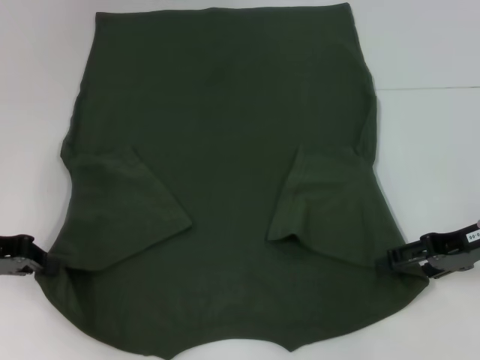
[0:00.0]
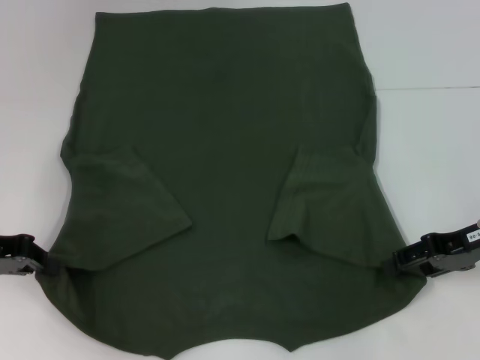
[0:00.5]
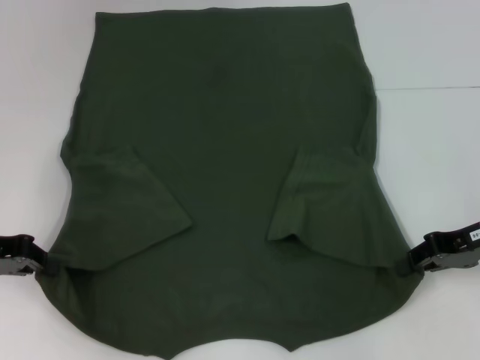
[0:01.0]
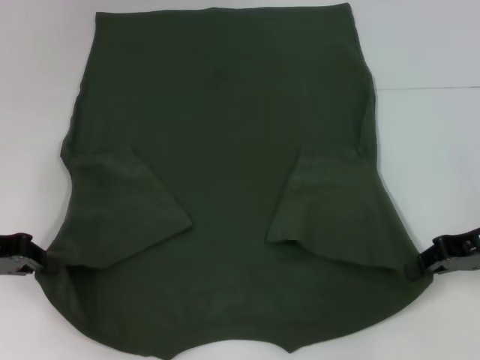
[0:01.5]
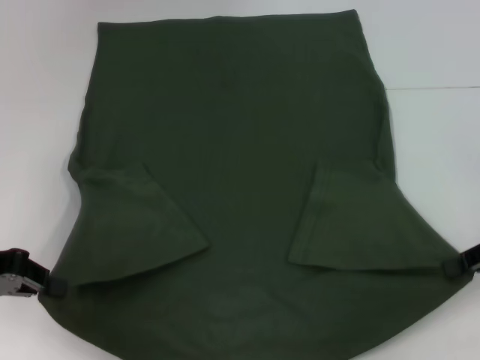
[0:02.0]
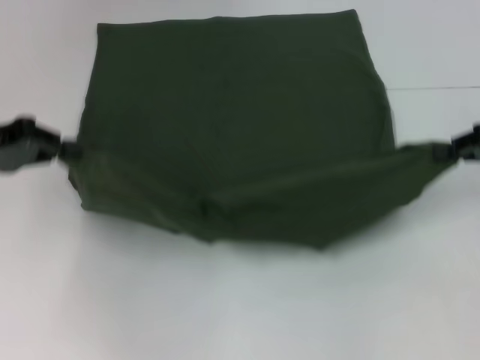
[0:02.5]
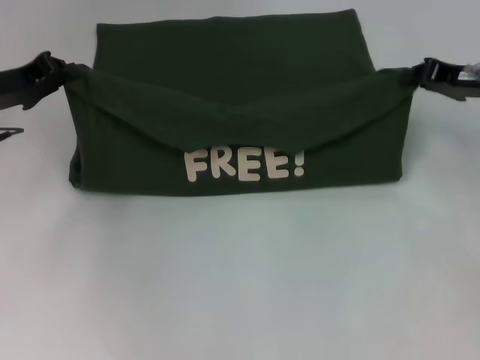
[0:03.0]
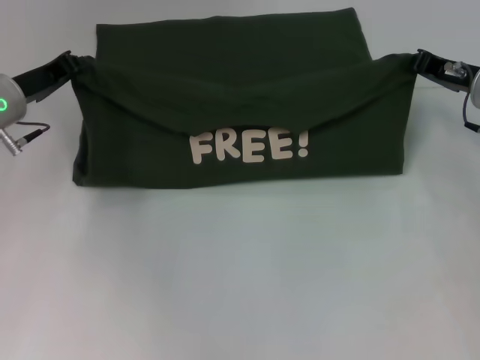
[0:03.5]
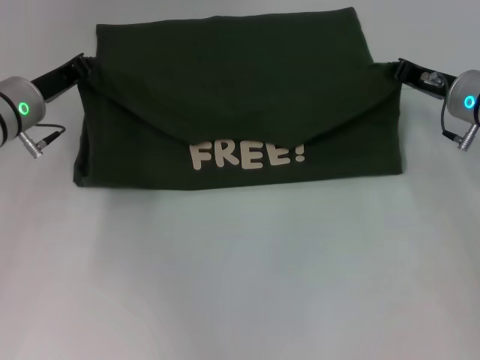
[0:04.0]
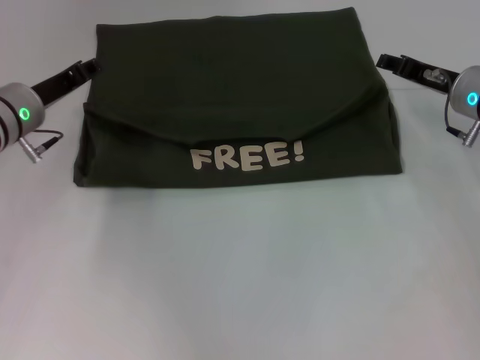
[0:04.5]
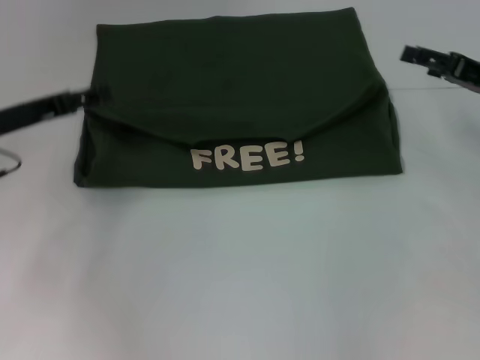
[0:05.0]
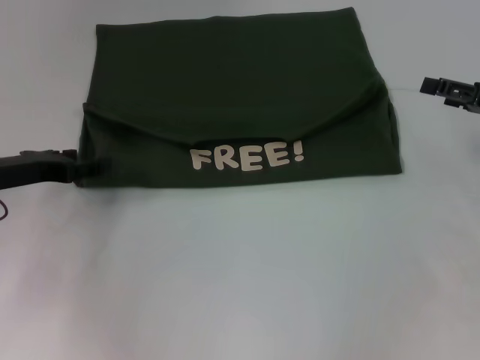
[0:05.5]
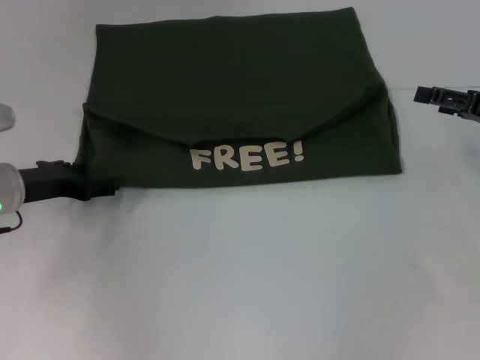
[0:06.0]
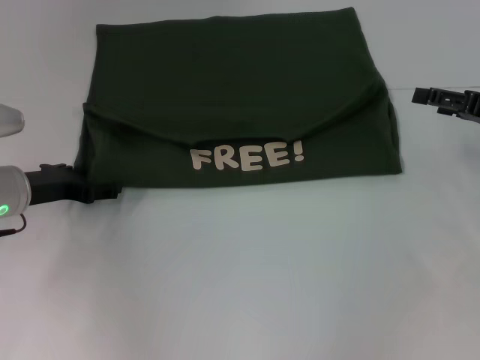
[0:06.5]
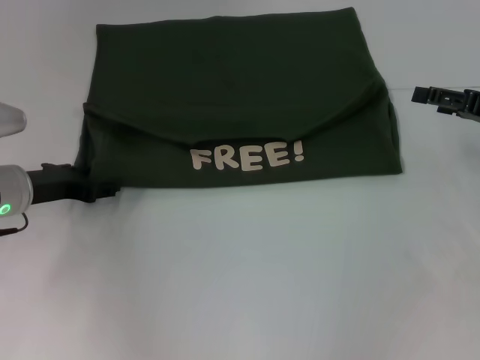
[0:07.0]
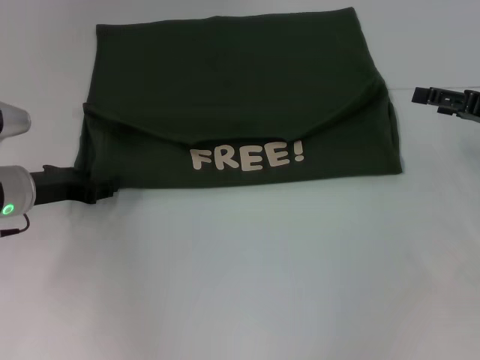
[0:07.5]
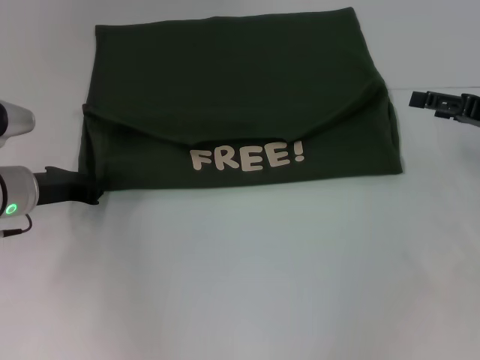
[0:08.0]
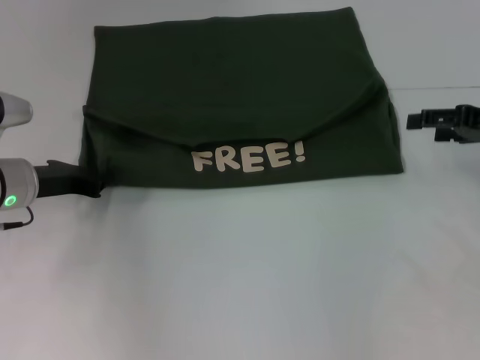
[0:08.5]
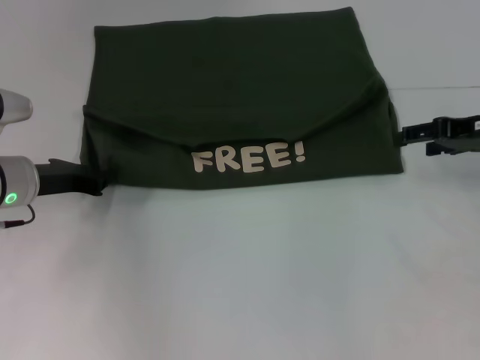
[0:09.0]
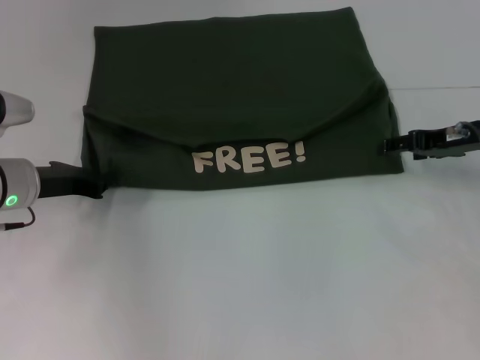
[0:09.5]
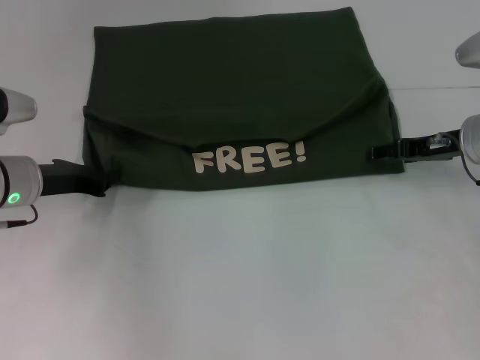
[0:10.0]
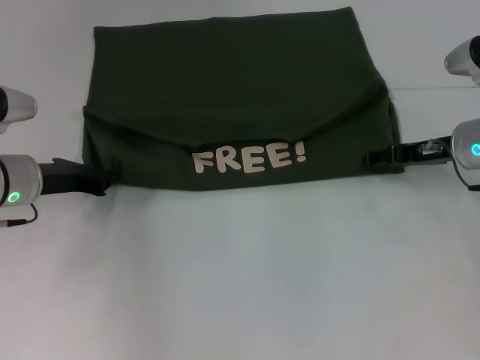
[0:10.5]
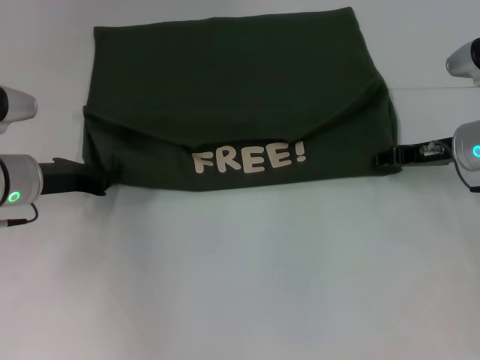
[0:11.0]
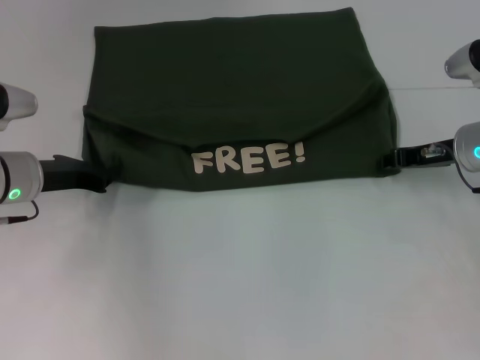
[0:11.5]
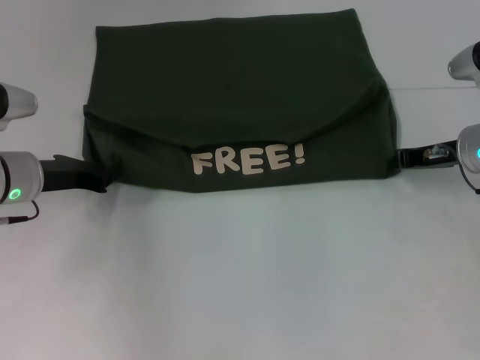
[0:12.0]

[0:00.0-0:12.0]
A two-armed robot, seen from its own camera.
Step, 0:01.5 to 0:04.0: Fold the clothes with your left hand.
Step, 0:01.5 to 0:04.0: Fold the clothes with your right hand.
0:00.0 to 0:02.0: The right gripper moves to the right, approximately 5 cm, and closes.
0:02.0 to 0:04.0: The left gripper travels forward and to the right by some 15 cm; the right gripper travels forward and to the left by roughly 15 cm.
0:04.0 to 0:06.0: The right gripper travels to the right and backward by about 10 cm, and opens its fingers, while the left gripper shifts some 5 cm backward, and opens.
0:06.0 to 0:08.0: The left gripper closes up.
0:08.0 to 0:10.0: The right gripper travels to the left by some 5 cm.
0:10.0 to 0:12.0: The right gripper closes.

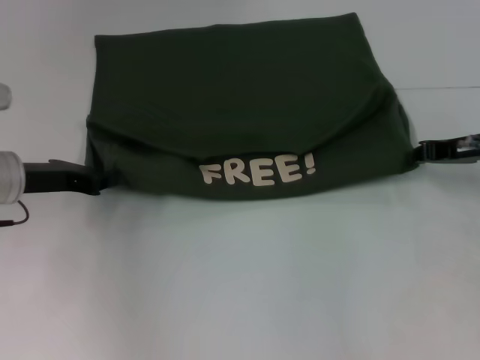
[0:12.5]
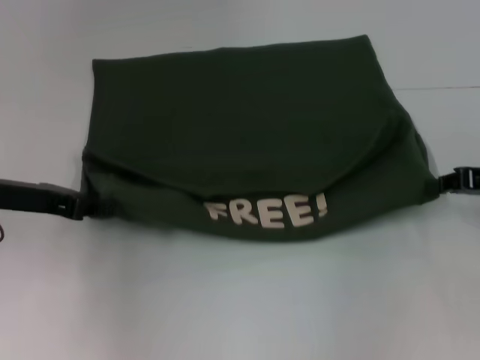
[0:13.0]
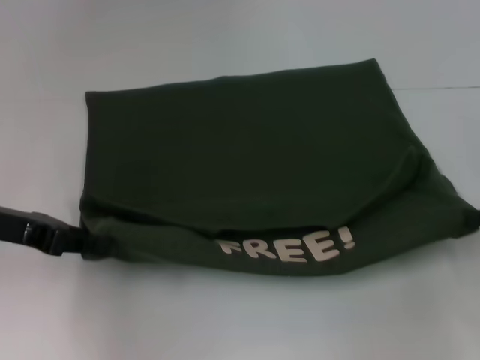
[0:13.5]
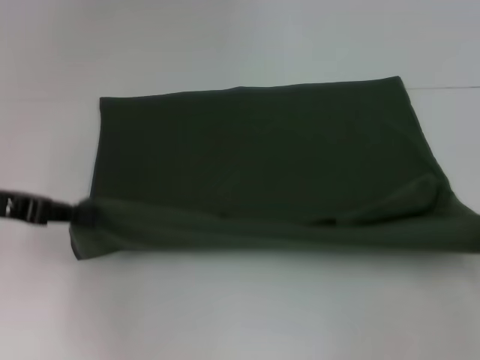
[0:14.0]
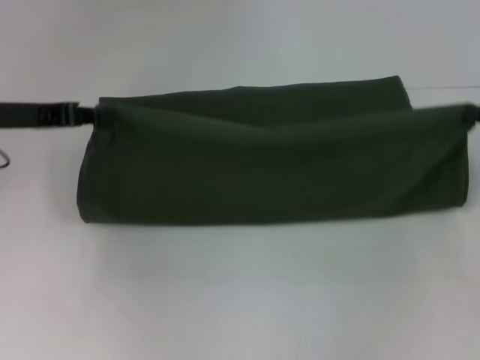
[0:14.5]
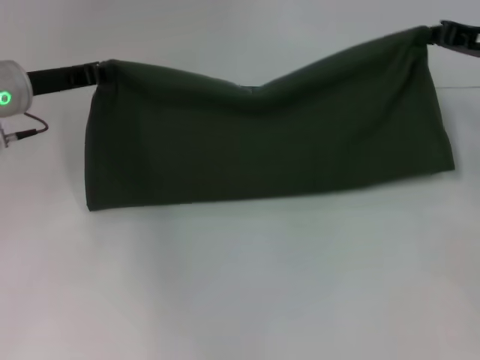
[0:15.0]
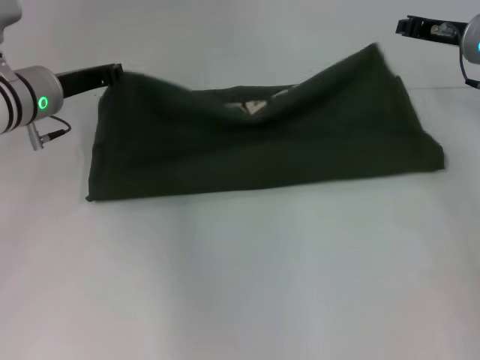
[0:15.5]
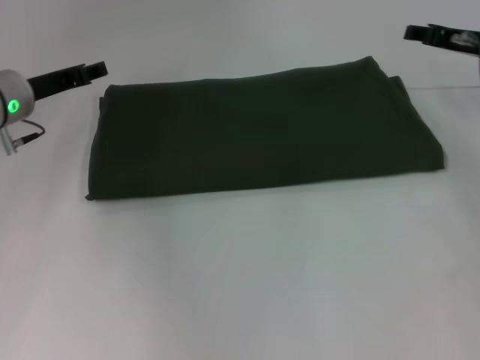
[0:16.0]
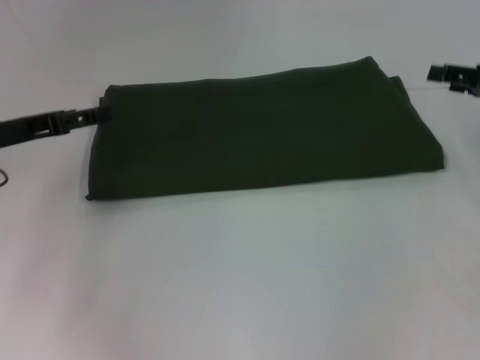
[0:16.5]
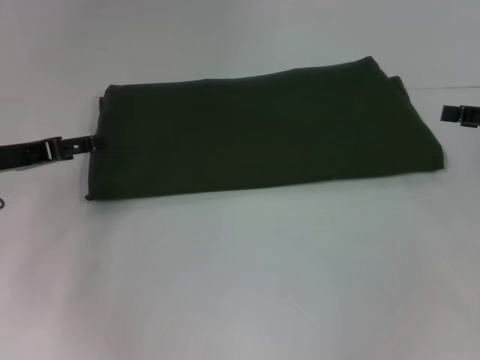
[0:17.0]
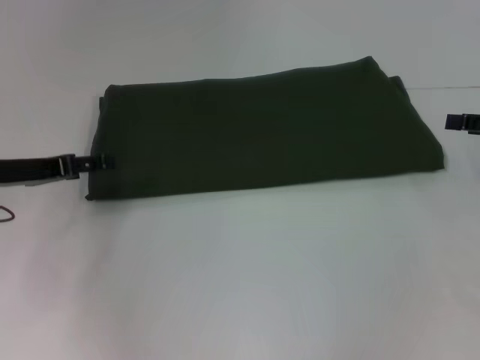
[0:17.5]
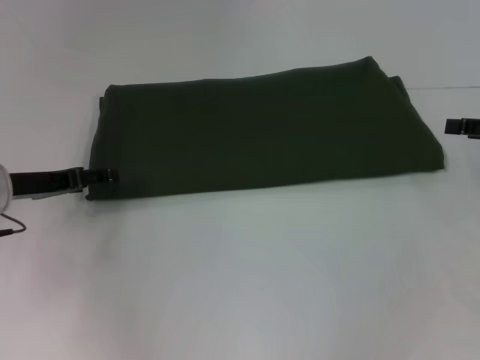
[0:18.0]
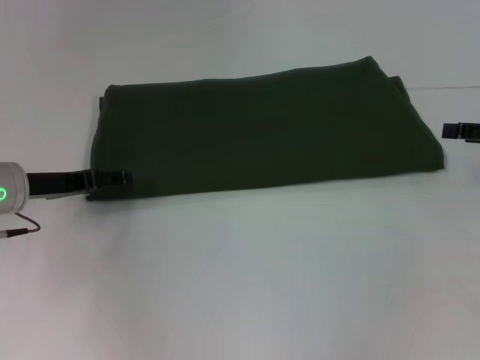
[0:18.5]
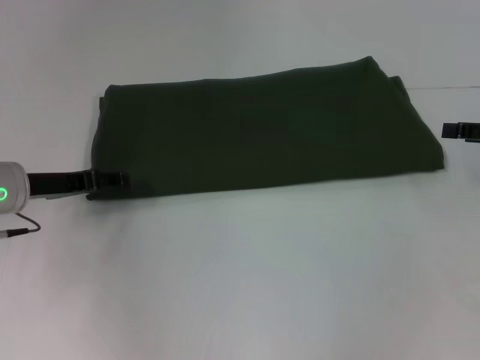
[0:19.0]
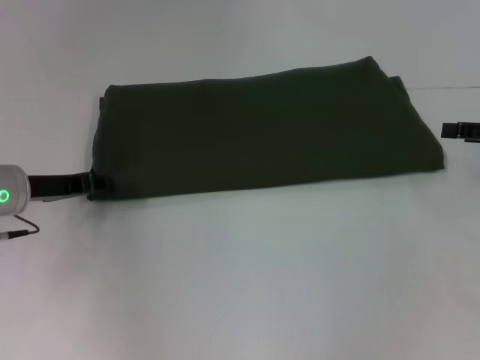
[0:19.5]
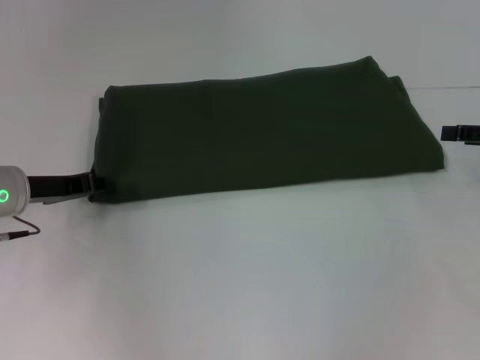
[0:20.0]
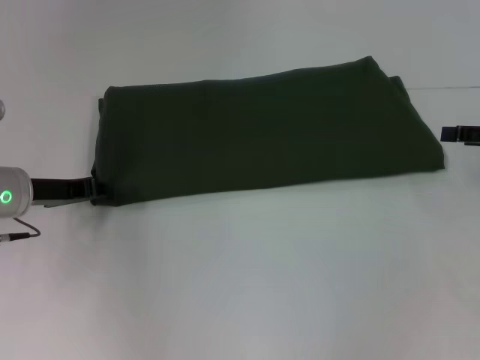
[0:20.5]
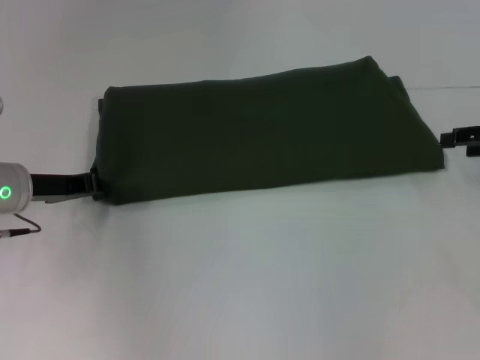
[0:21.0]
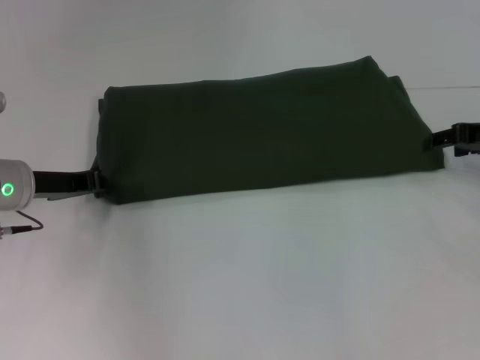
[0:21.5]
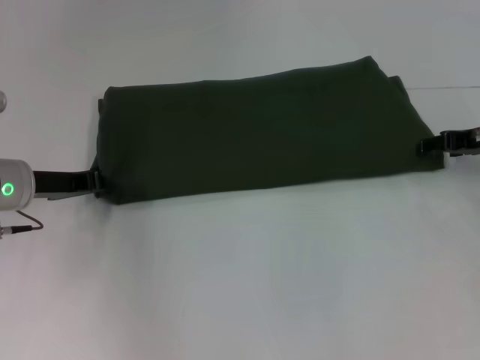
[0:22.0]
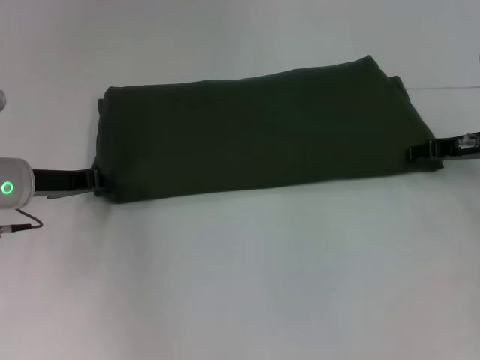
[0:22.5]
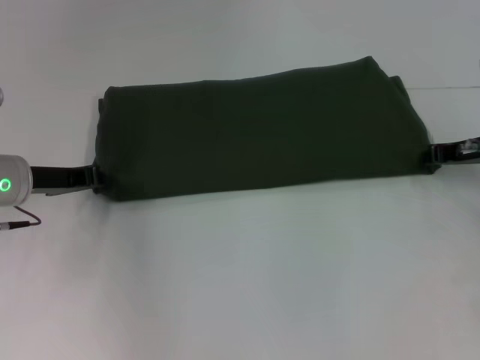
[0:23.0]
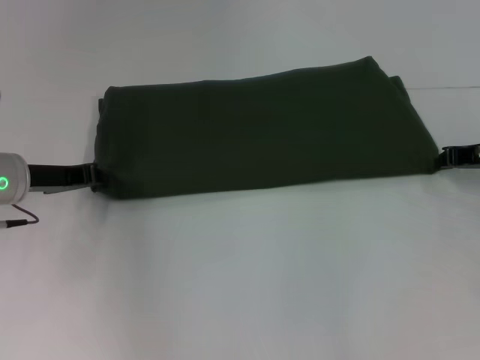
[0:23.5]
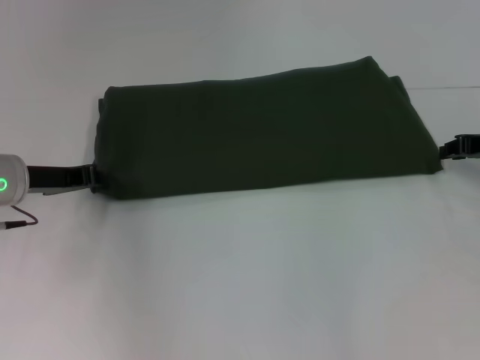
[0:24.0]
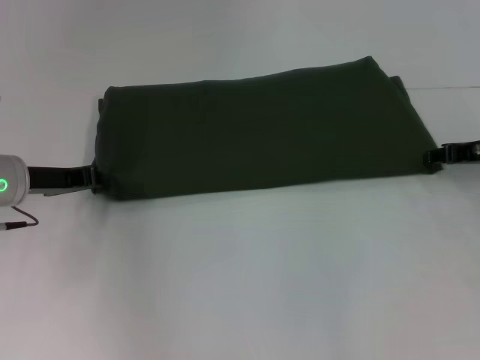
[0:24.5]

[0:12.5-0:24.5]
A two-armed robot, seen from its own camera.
Step, 0:13.5 to 0:15.5: Fold the clothes with your left hand.
Step, 0:13.5 to 0:15.5: Fold the clothes with your right hand.
0:12.5 to 0:14.5: The right gripper is displaced to the right by approximately 5 cm, and reaches approximately 15 cm backward, then returns; the left gripper goes approximately 5 cm upward.
0:14.5 to 0:16.5: The right gripper travels forward and back again, about 10 cm each way, and opens. The left gripper moves approximately 5 cm forward and comes back, and opens up.
0:16.5 to 0:18.5: The left gripper shifts by roughly 5 cm.
0:18.5 to 0:20.5: The left gripper closes.
0:20.5 to 0:22.5: The right gripper travels to the left and forward by some 10 cm.
0:22.5 to 0:24.5: The right gripper closes and opens again.

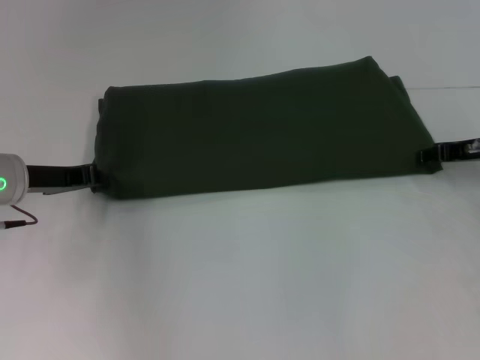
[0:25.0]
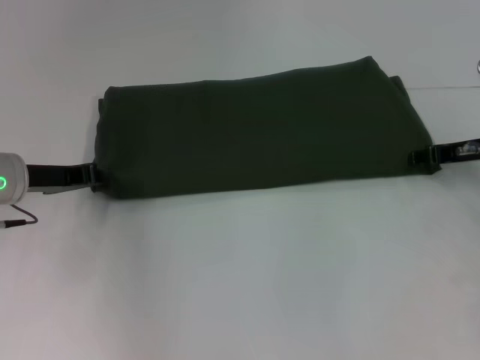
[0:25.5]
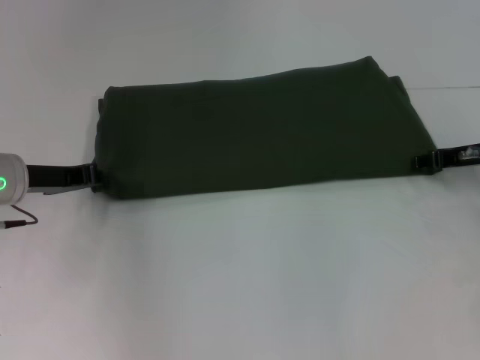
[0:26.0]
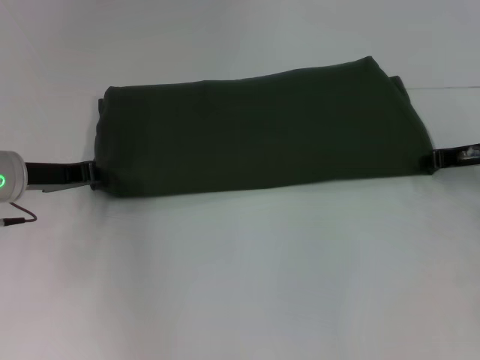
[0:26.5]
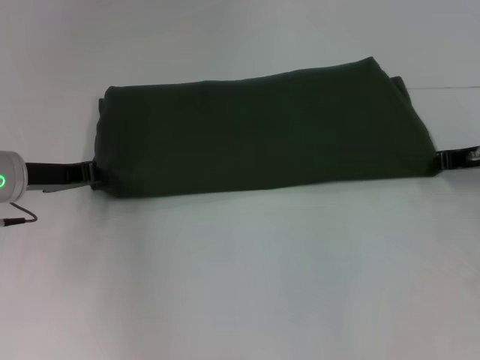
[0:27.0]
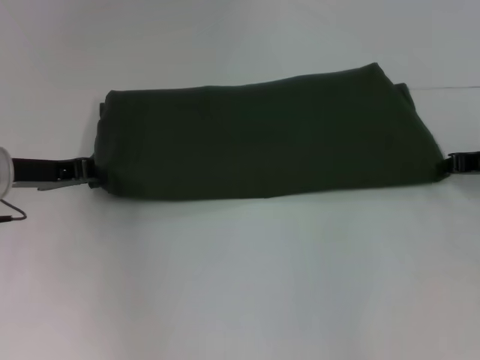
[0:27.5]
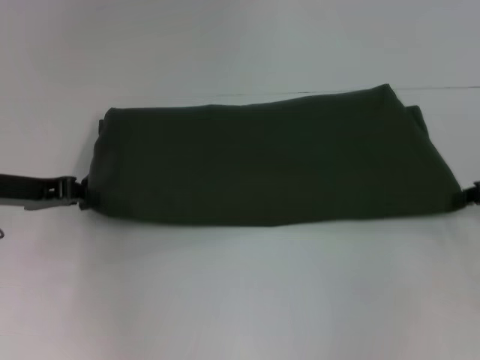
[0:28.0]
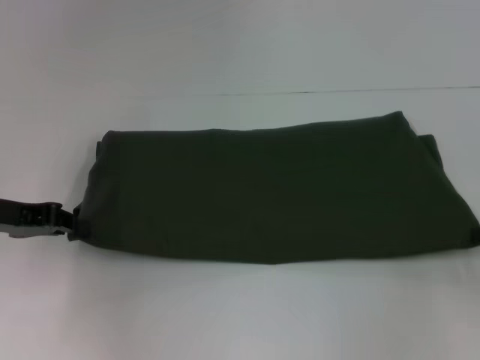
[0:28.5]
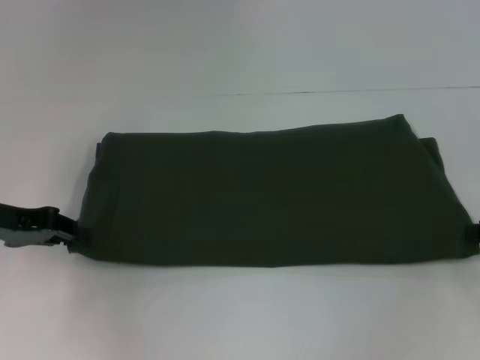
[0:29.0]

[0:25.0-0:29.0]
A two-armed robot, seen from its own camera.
0:25.0 to 0:27.0: The right gripper closes its fingers.
0:27.0 to 0:29.0: The left gripper moves approximately 5 cm; the right gripper moves backward and to the right, some 10 cm.
